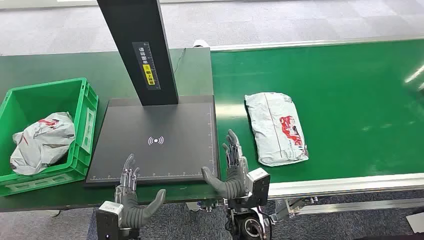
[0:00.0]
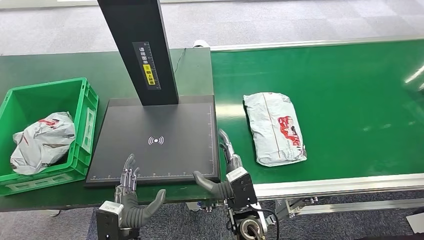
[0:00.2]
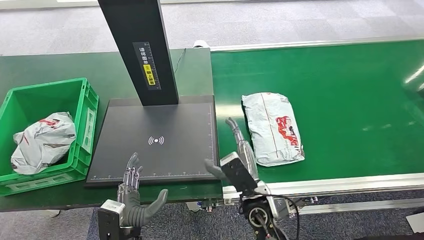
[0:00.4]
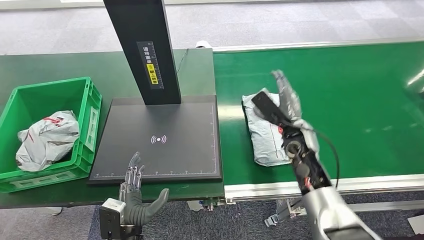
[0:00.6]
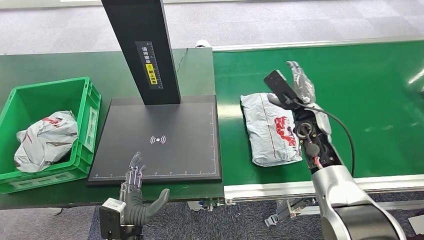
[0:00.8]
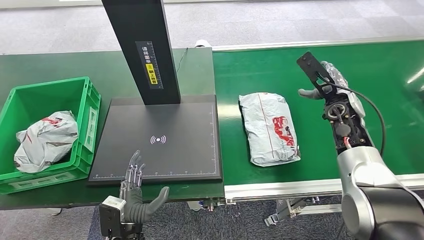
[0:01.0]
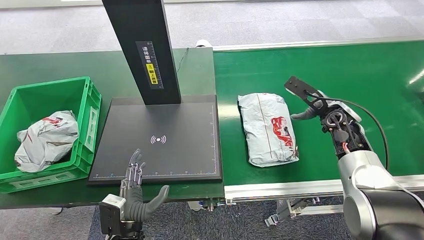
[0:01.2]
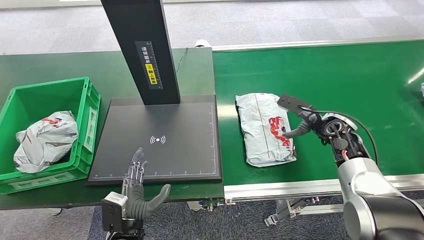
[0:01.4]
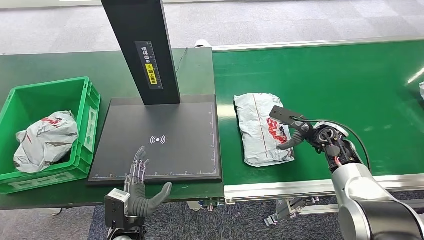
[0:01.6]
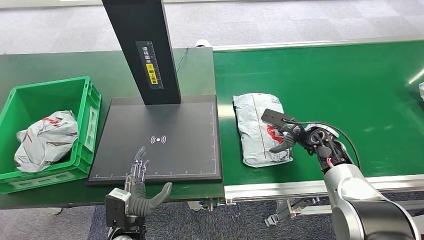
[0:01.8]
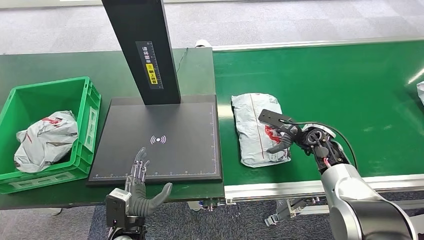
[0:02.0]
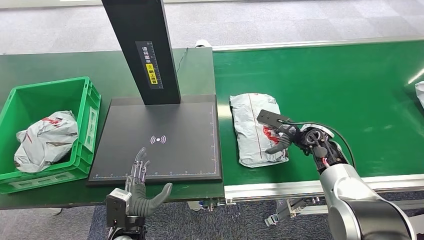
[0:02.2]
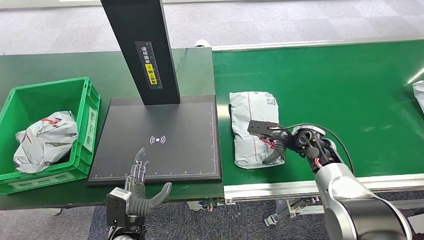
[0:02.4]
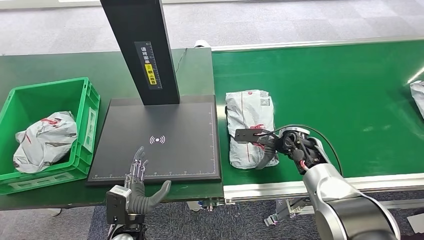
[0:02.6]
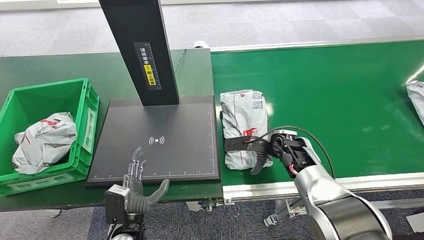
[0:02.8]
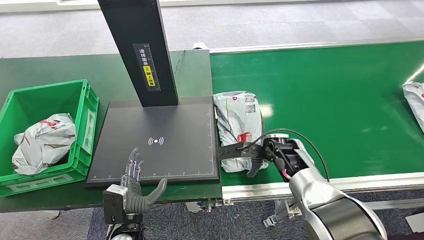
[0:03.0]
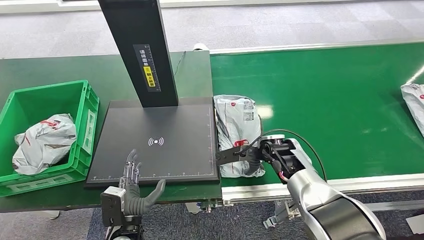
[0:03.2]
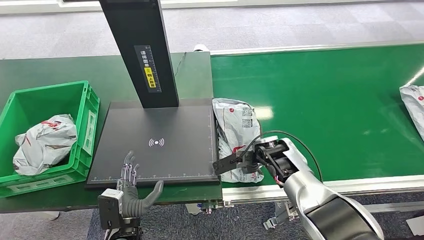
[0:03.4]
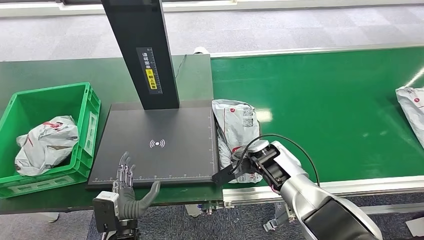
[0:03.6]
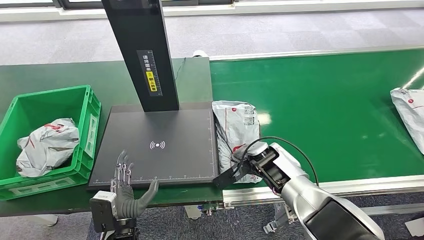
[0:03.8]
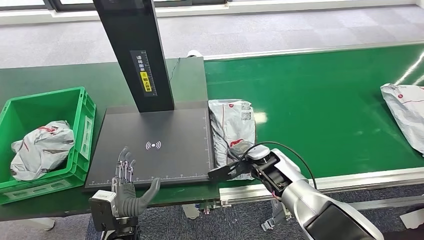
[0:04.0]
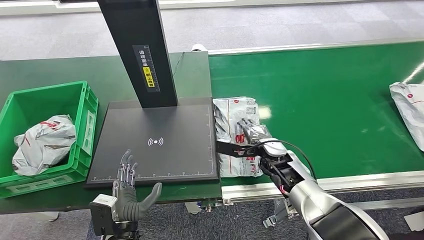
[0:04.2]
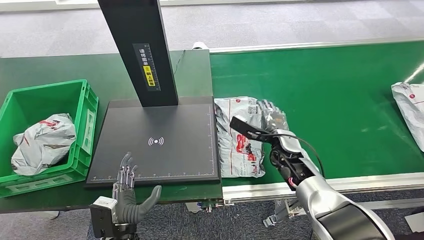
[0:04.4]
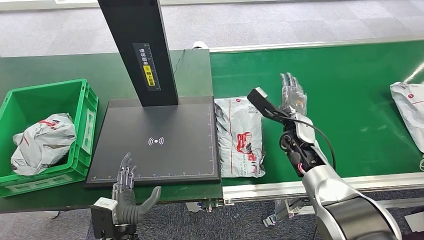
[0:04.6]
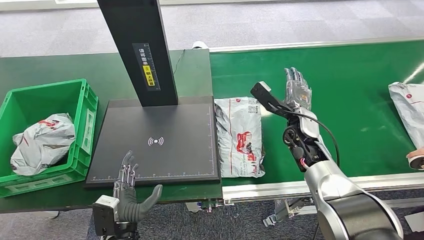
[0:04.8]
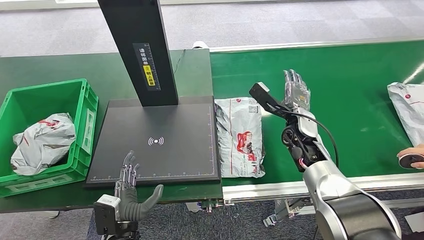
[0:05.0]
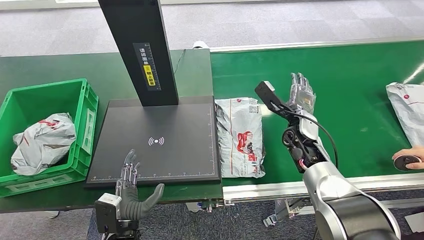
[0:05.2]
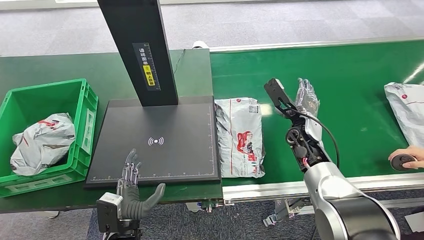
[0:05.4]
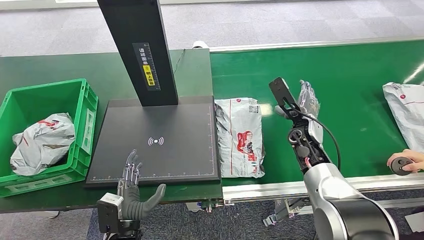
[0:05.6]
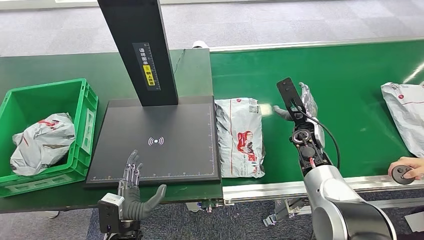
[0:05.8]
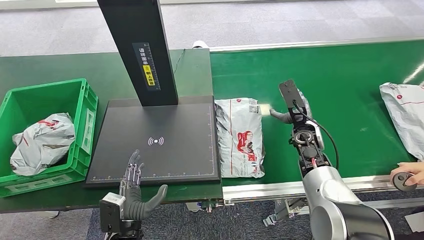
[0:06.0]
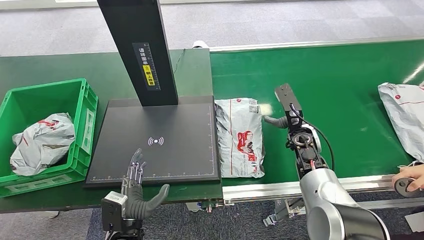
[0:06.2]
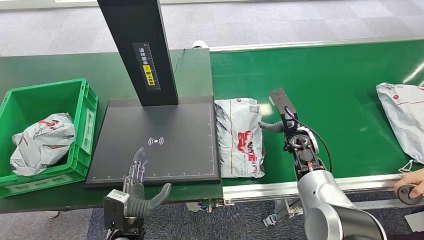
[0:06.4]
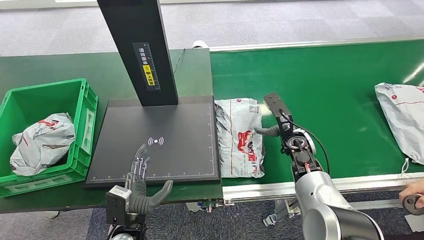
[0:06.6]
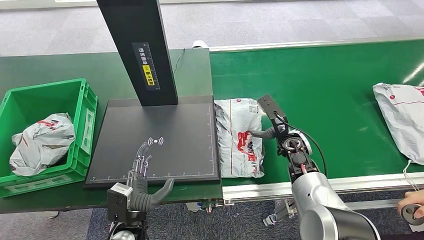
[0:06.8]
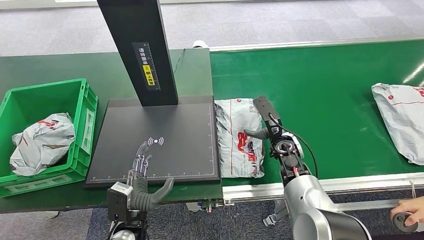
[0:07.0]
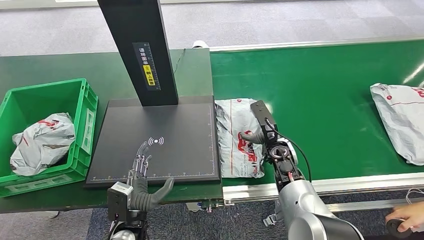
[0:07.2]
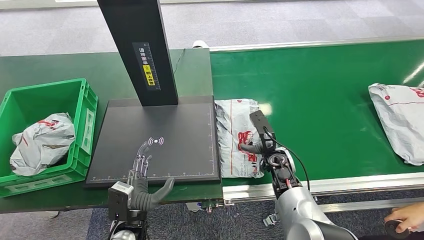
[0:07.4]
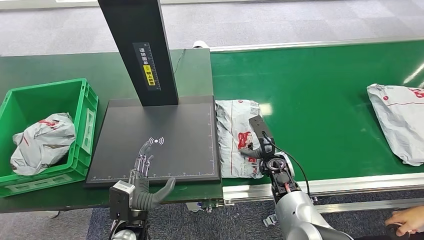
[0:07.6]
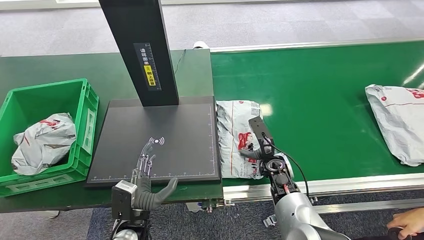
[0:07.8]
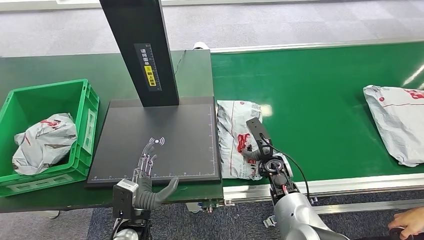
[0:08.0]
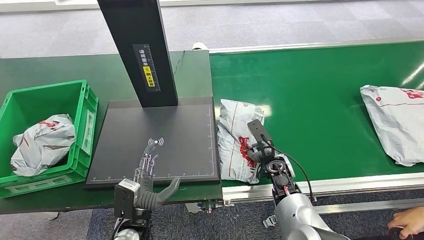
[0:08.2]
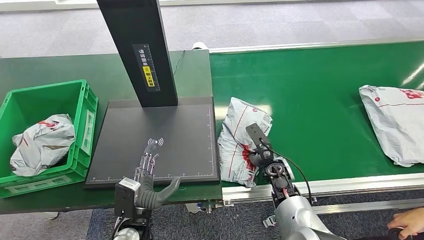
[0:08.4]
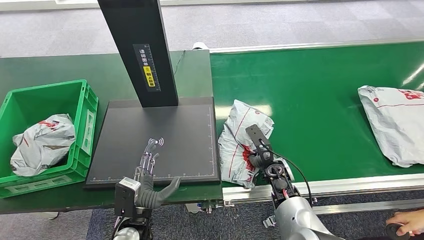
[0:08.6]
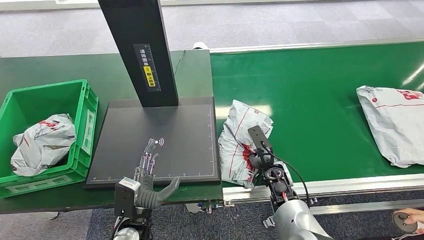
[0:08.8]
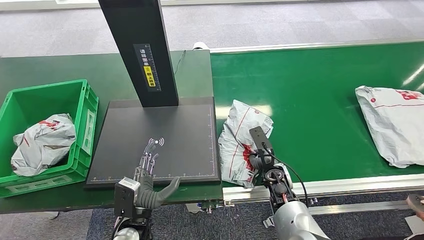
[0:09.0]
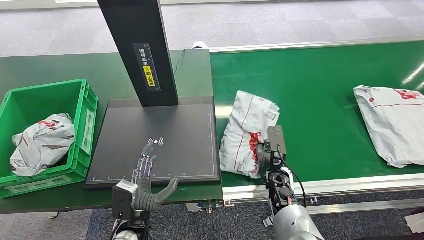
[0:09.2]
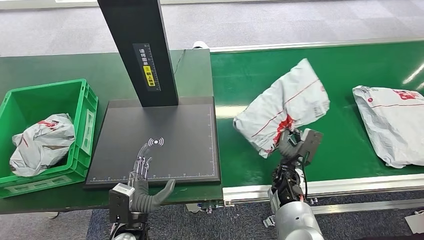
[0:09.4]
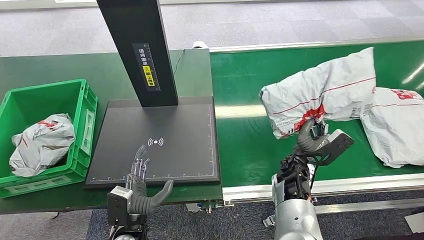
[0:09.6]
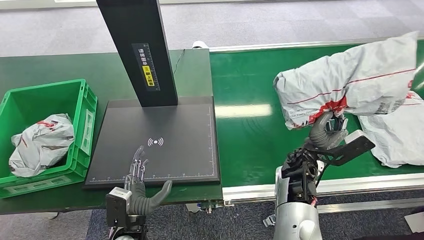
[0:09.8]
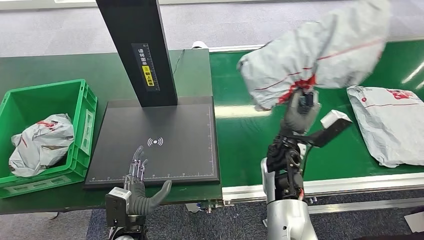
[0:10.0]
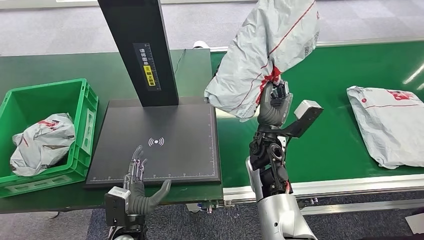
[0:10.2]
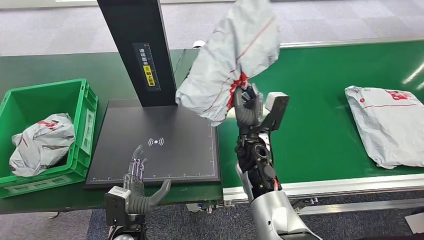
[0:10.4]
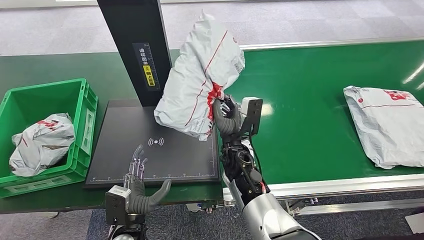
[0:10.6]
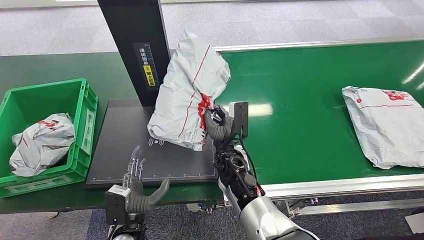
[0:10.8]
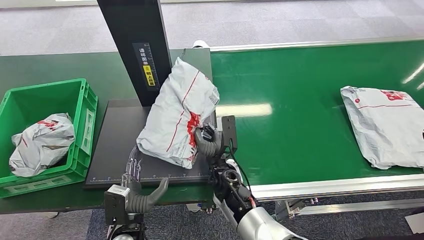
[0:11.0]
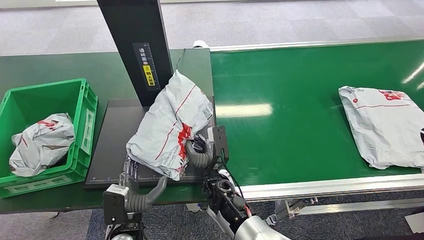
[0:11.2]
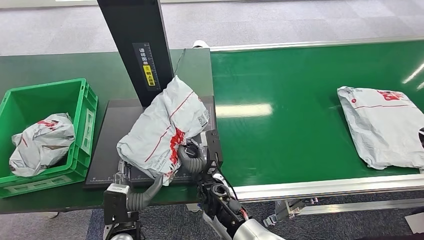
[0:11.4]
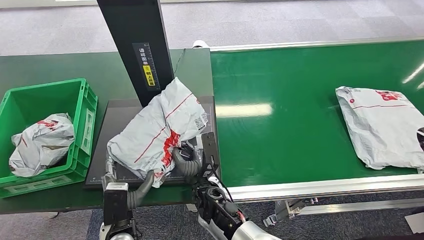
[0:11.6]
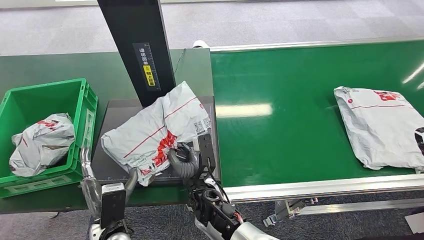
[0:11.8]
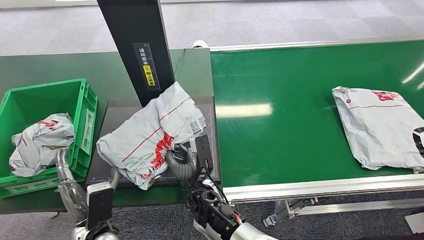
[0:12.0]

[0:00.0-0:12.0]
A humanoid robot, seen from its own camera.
Step, 0:00.0 to 0:10.2: Pick up the package from the conveyor belt.
0:06.0 to 0:07.6: The right hand goes some 15 cm to the left, downward and backward.
0:07.6 to 0:09.0: The hands move only a little.

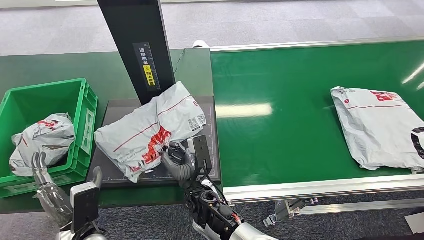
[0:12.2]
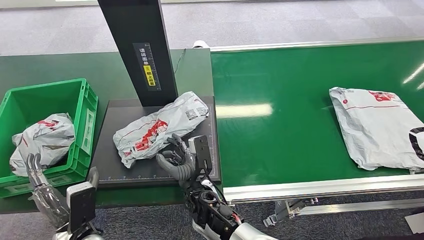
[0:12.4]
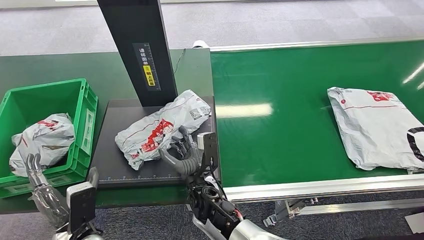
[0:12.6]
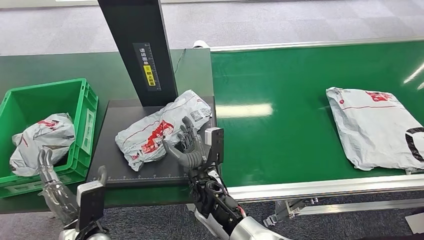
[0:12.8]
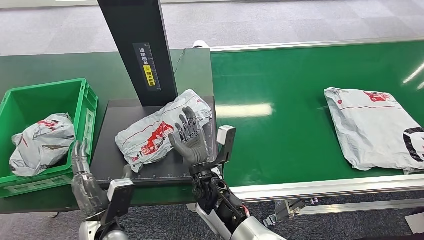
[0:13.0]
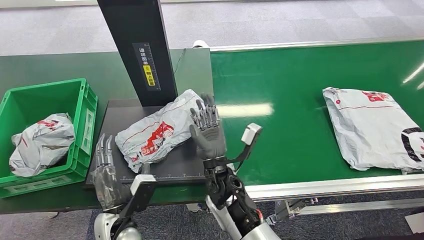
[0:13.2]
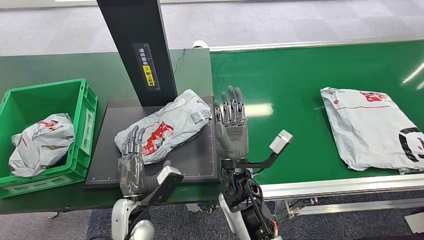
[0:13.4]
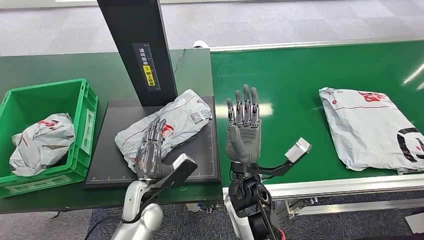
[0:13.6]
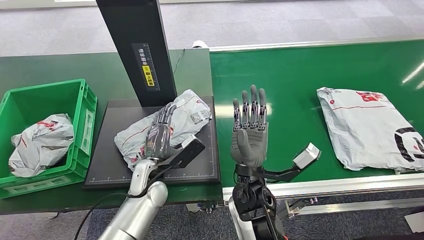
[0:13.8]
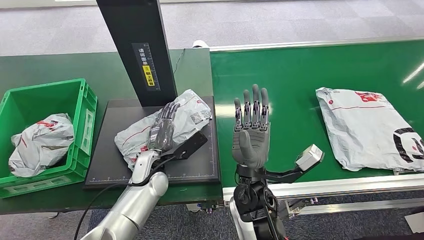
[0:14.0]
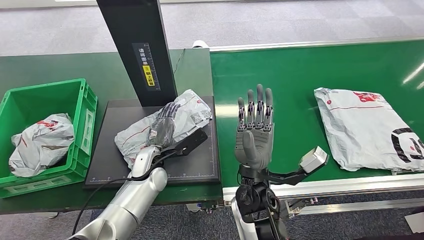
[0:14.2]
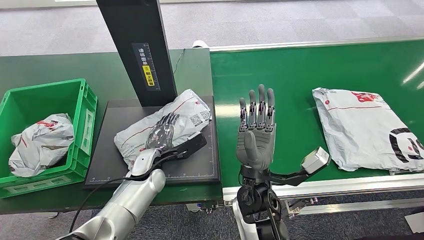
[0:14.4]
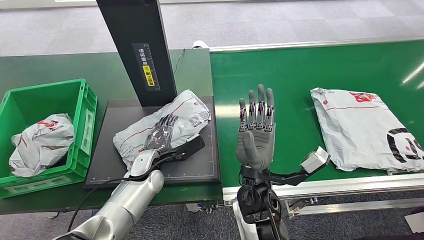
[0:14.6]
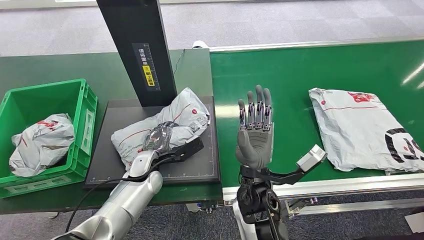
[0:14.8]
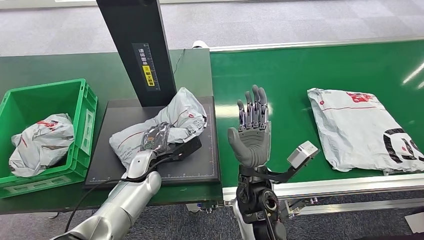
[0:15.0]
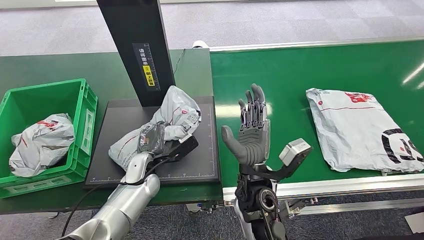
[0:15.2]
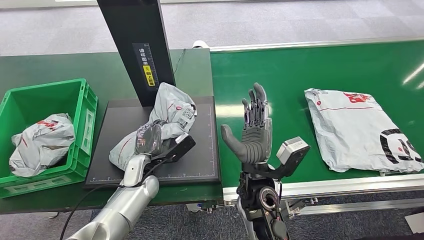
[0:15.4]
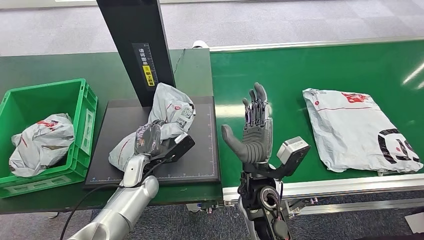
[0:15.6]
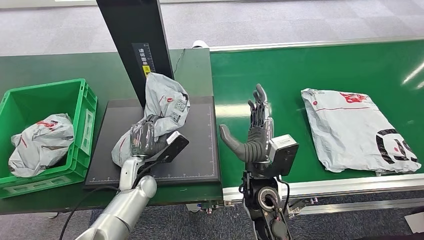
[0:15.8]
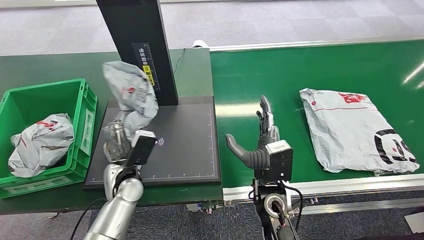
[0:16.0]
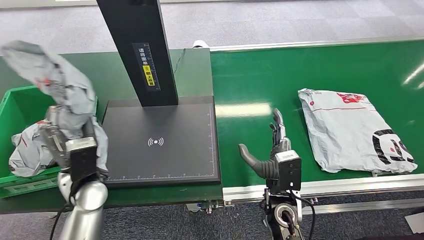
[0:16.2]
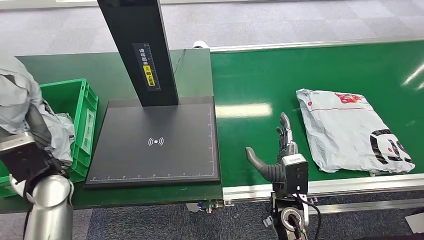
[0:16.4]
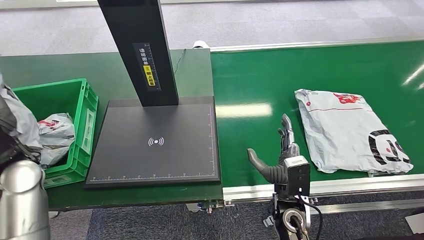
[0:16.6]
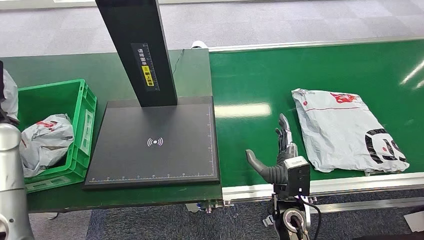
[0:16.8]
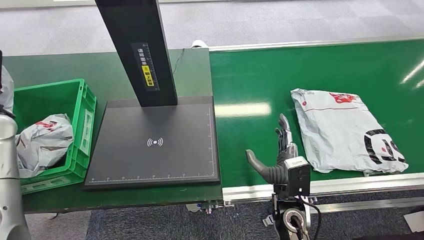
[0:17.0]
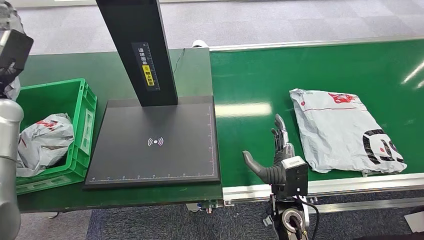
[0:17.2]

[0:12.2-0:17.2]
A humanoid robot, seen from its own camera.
Step, 0:13.6 to 0:16.4: Pick up the package from the inbound machine.
0:13.8 to 0:15.6: The left hand changes place by approximately 5 cm.
